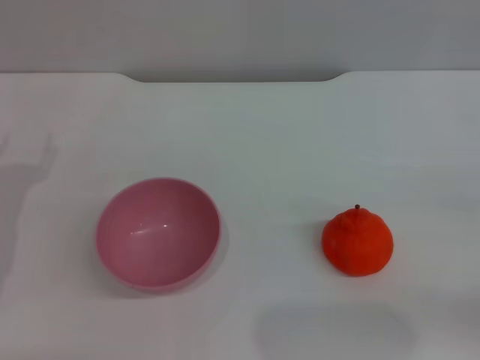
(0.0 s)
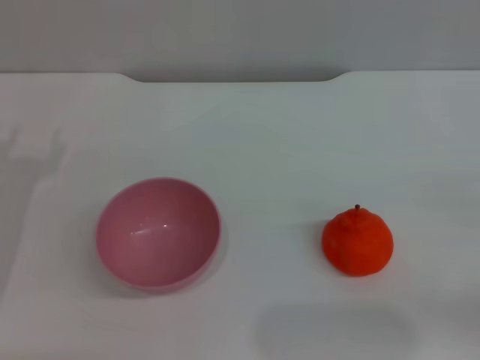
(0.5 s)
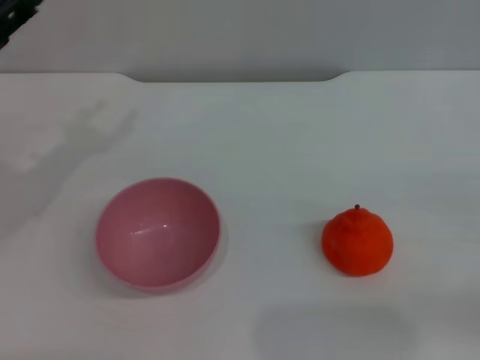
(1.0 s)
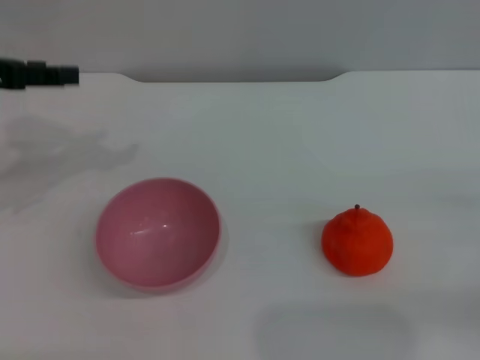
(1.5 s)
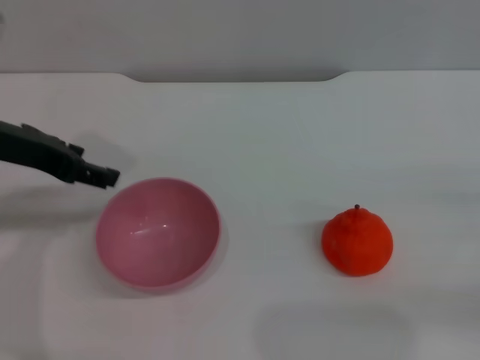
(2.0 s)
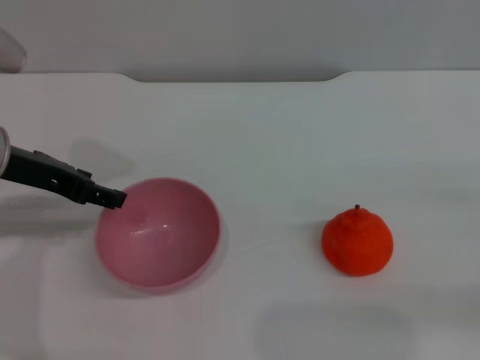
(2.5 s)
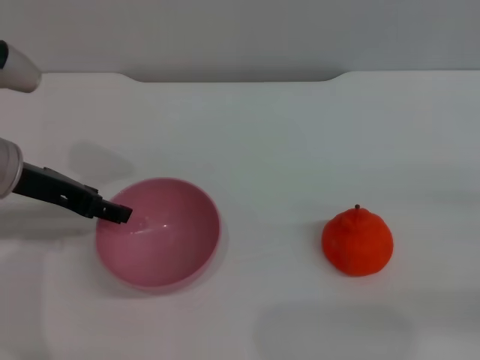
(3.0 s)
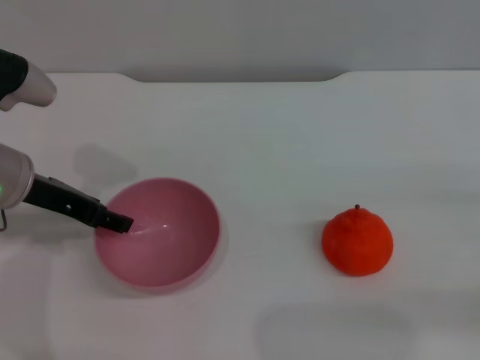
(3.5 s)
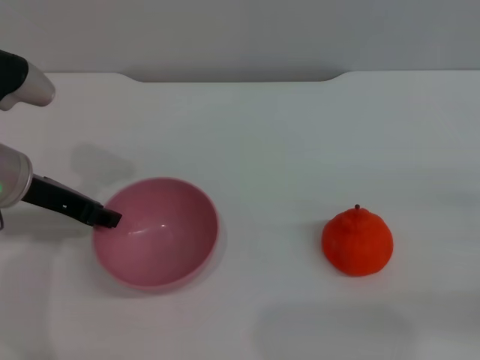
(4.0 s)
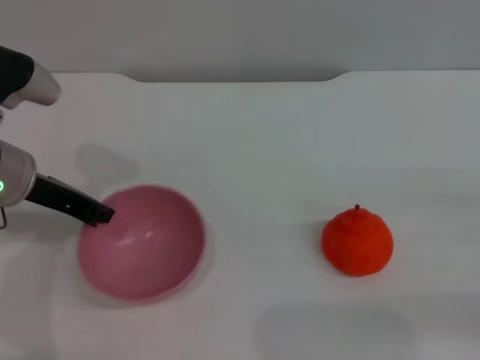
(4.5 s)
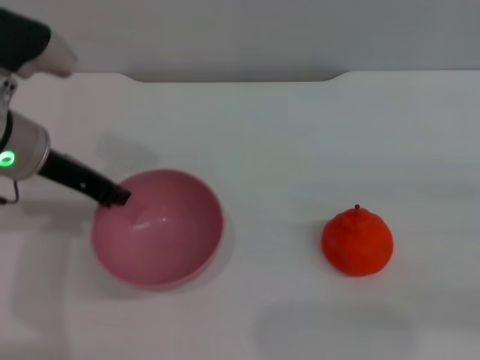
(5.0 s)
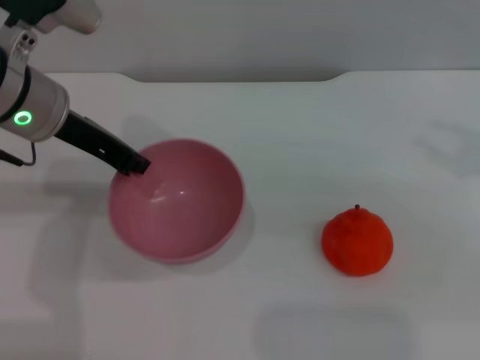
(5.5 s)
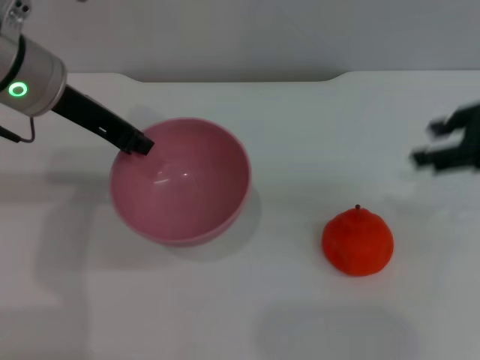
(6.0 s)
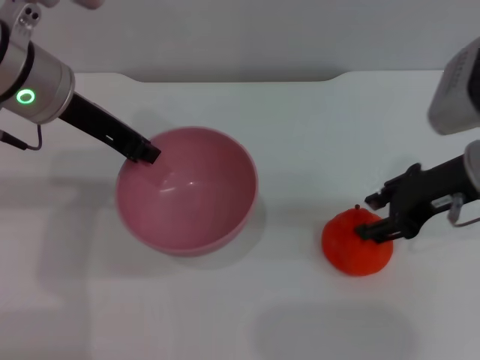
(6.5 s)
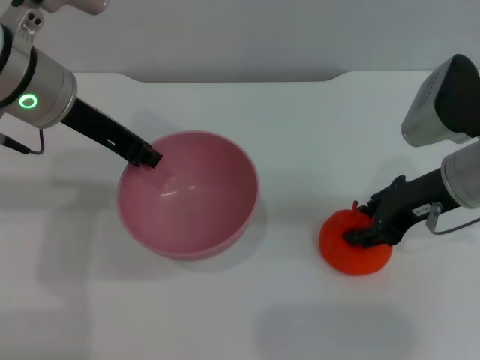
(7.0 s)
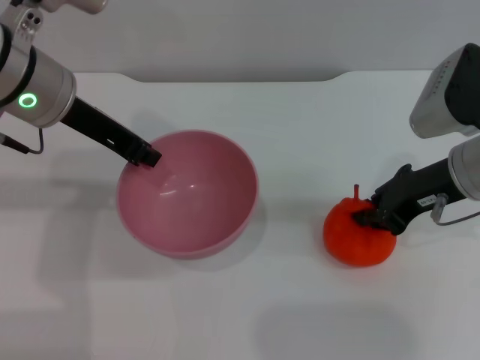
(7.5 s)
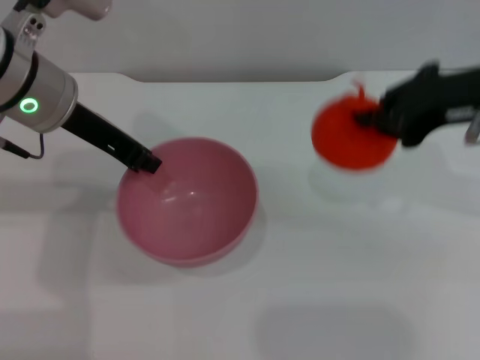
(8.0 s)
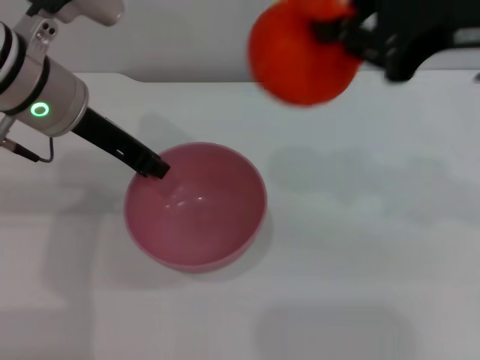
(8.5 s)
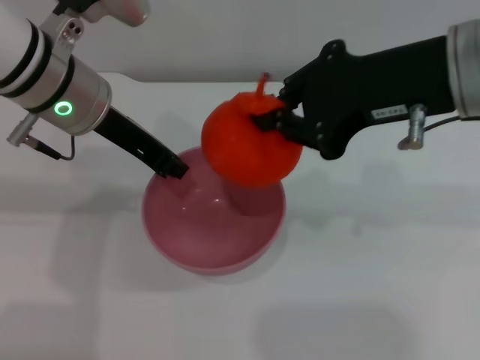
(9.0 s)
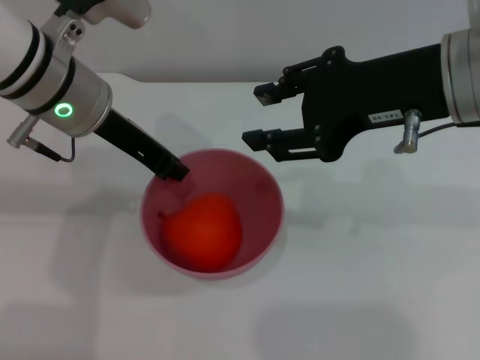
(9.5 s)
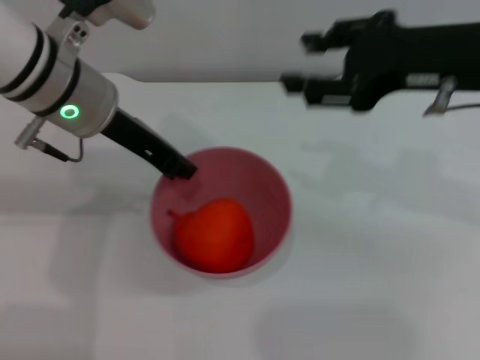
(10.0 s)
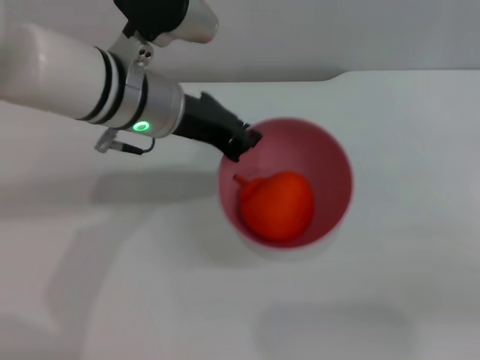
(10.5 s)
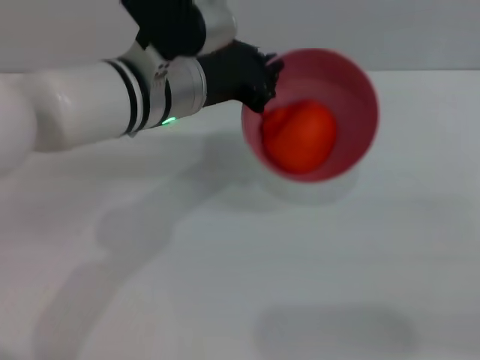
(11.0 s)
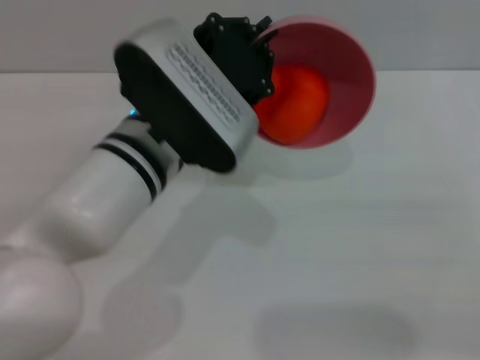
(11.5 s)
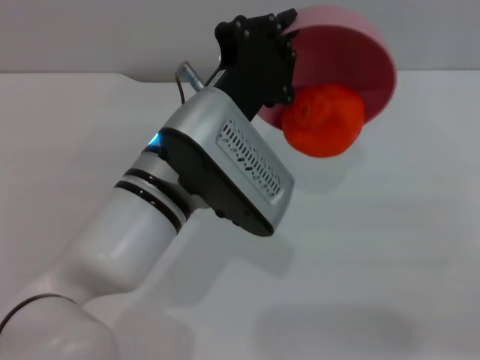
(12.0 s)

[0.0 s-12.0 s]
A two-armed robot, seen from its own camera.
Task of the whole recording: put the orange into the pink bowl and pour it out repeatedly.
Step, 0.0 to 5.5 s: Pick up the bowl with the left gripper.
Step, 6.0 to 7.5 s: Pick up the orange with the right gripper.
Step, 8.5 to 9.5 s: Place the orange into the bowl.
0.0 to 2.0 s: The left gripper travels upward, to the right and forward by some 15 cm.
2.0 to 4.0 s: The left gripper goes approximately 5 cm downward.
4.0 to 6.0 s: The right gripper moves upward, to the left and forward, about 20 cm; the left gripper is displaced upward by roughly 10 cm, and closes its fingers.
6.0 to 8.0 s: The right gripper is displaced to the left by roughly 5 cm, travels downward and back again, approximately 10 cm each way, and closes its fingers.
8.0 to 10.0 s: The right gripper opens up.
10.0 to 12.0 s: The right gripper travels to the right, downward and backward by about 25 cm. The left gripper goes about 15 cm to the right, backward and downward.

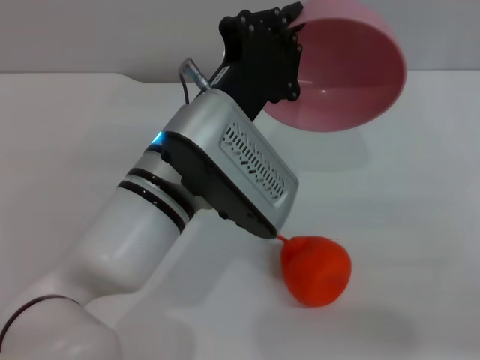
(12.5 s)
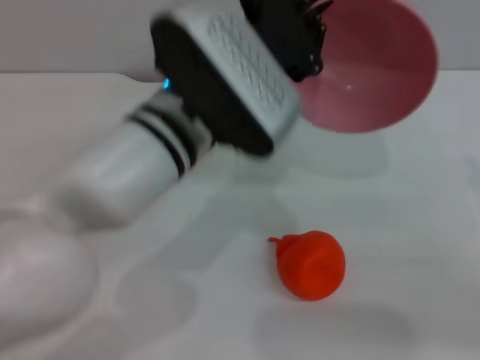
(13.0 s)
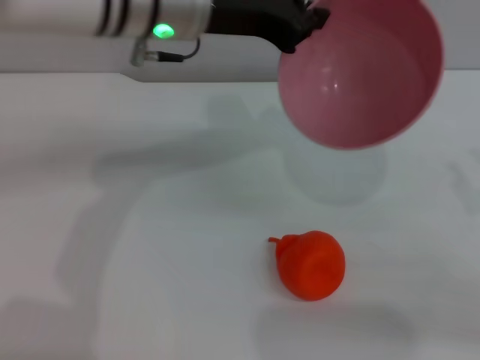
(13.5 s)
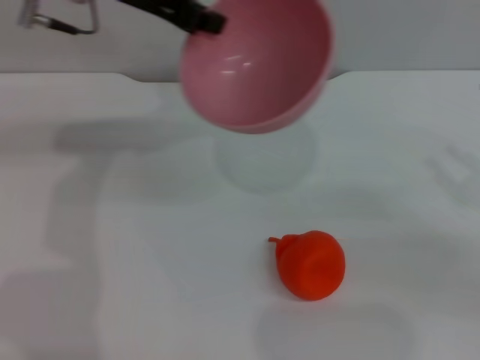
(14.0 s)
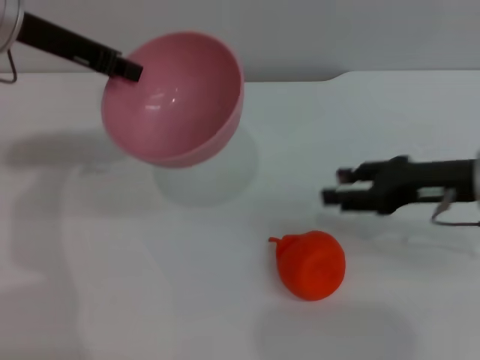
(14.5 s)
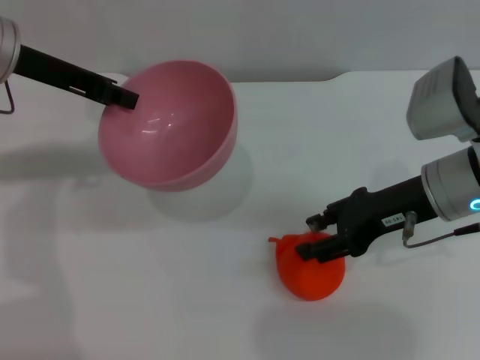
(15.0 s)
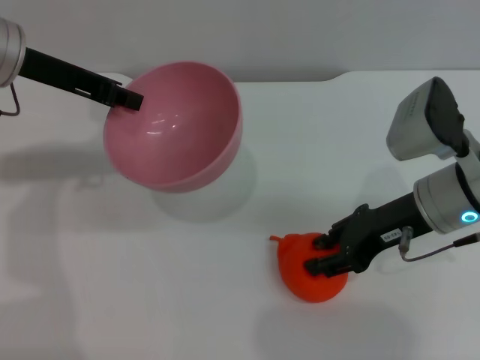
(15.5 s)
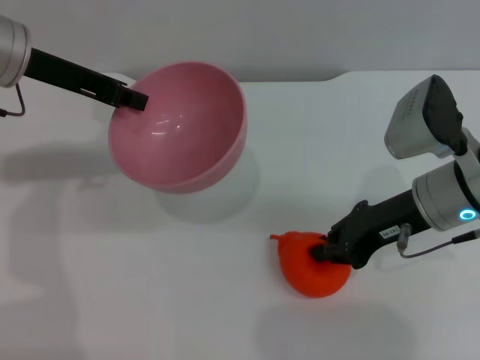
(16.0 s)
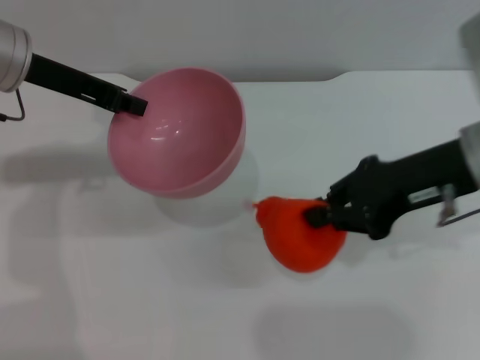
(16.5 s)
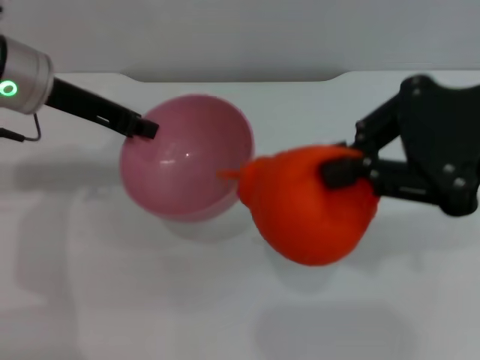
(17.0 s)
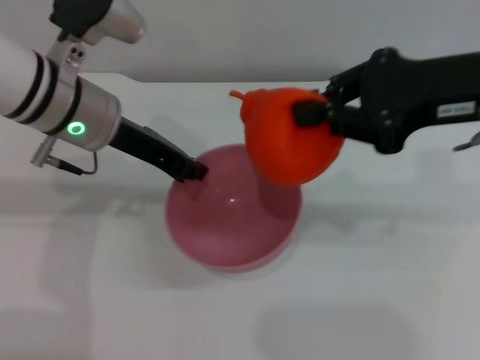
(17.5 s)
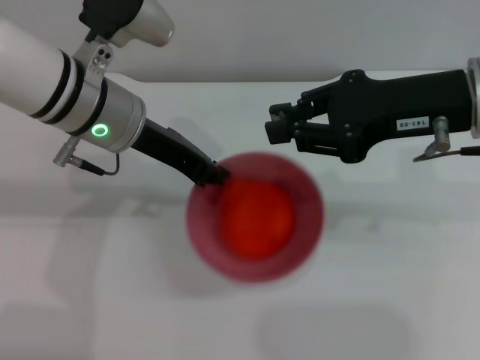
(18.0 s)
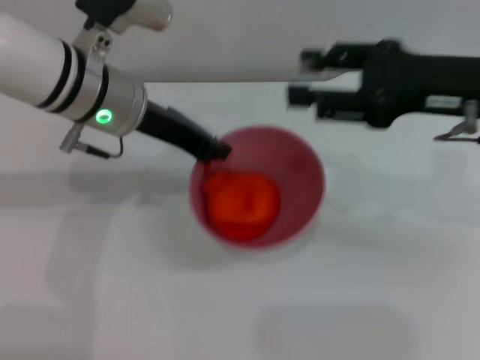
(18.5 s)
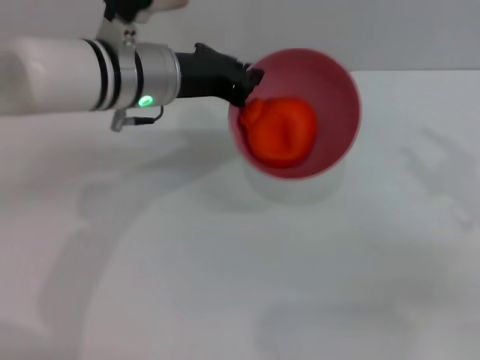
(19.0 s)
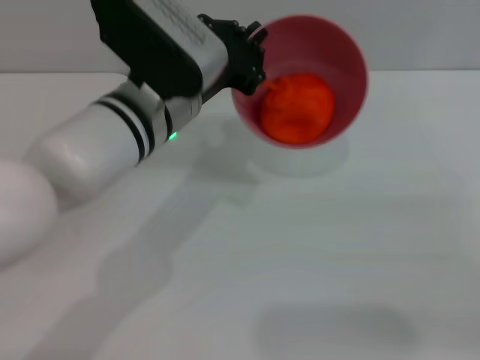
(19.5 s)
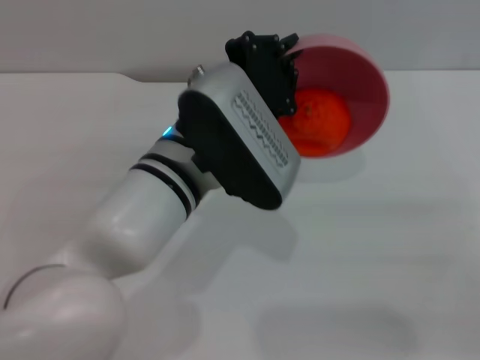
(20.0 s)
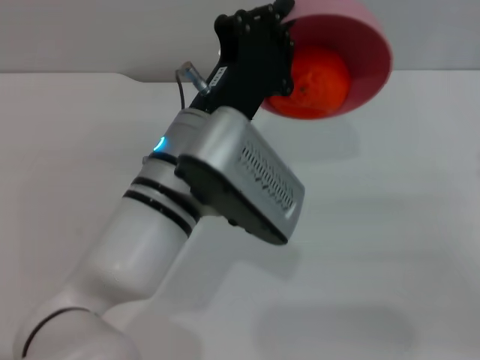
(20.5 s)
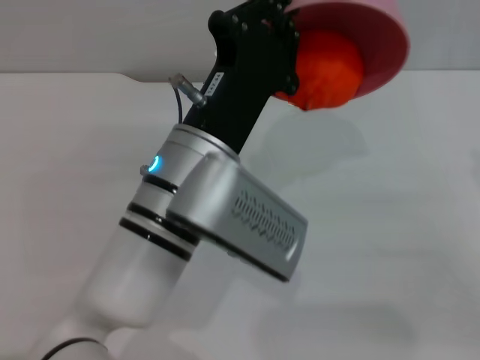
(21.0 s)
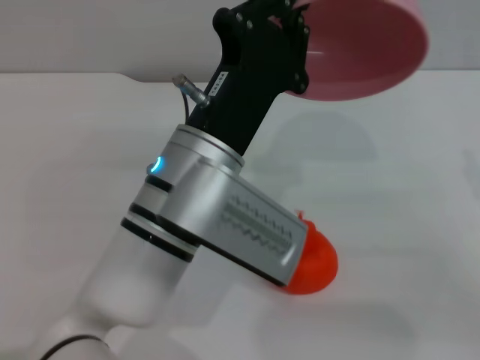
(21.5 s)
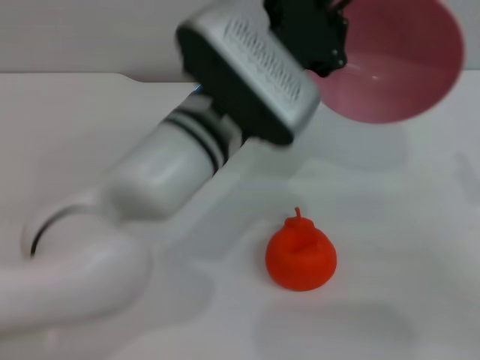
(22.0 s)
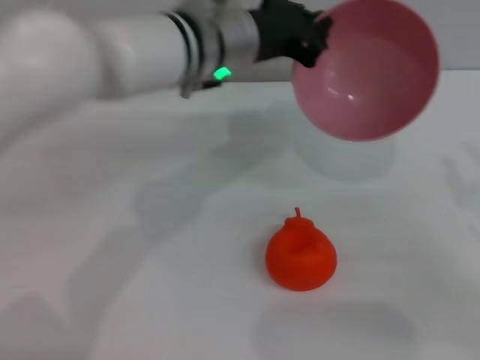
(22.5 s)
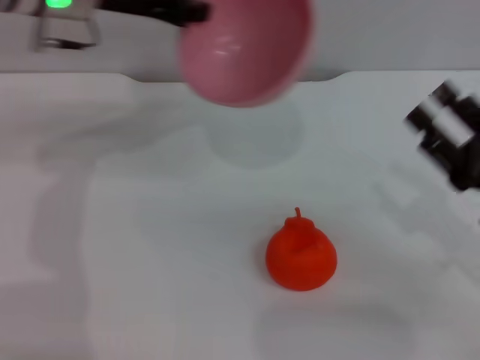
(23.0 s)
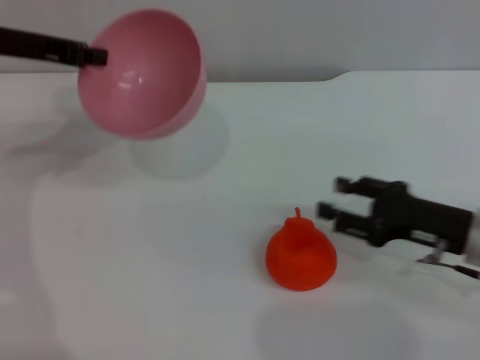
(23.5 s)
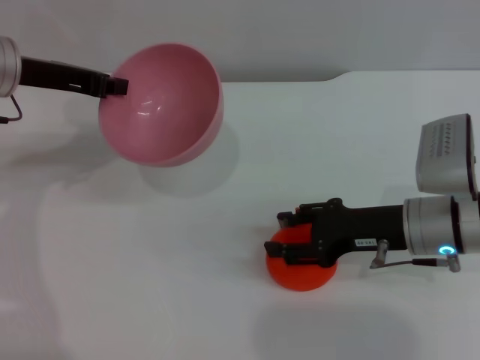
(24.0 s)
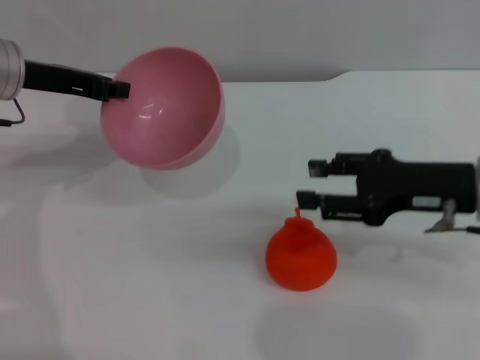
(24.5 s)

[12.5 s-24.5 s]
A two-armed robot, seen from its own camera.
Task of the whole recording: put the orange into the pink bowl and pour it out repeatedly.
Step, 13.0 to 17.0 s: Pick up the orange with the right gripper.
Step, 17.5 to 18.0 s: Place the orange into the bowl.
Step, 19.0 to 21.5 s: Pour the orange out of the bowl.
12.5 to 14.5 s: The right gripper heads forward and to the left, covering about 15 cm, while the left gripper is displaced to the left, forward and upward by about 25 cm.
14.5 to 16.5 s: The right gripper is displaced upward by some 10 cm, and closes its fingers.
16.5 to 18.5 s: The right gripper travels upward and back again, some 10 cm each way, and opens. The left gripper goes some 10 cm to the right.
18.5 to 20.5 s: The left gripper goes about 15 cm backward and to the right; the right gripper goes approximately 20 cm downward, to the right and backward.
20.5 to 22.5 s: The left gripper goes approximately 10 cm forward and upward.
22.5 to 24.5 s: The left gripper shifts some 20 cm to the left. The right gripper goes about 10 cm to the left and forward.

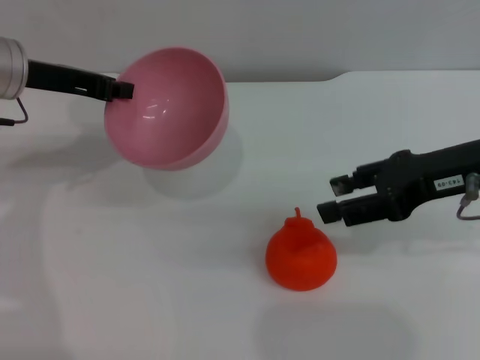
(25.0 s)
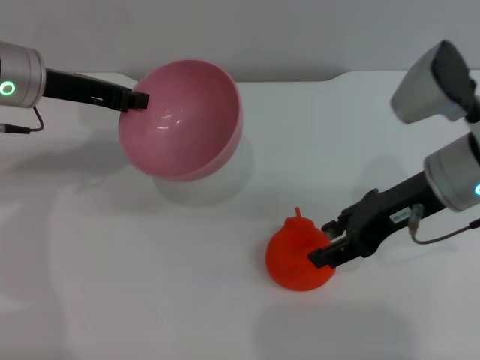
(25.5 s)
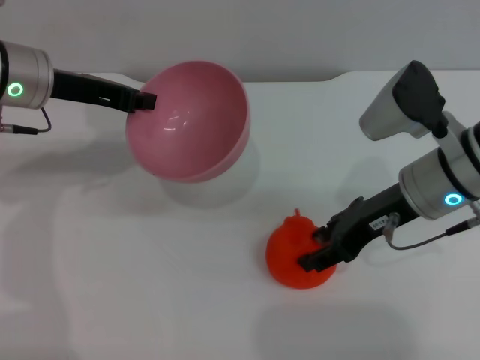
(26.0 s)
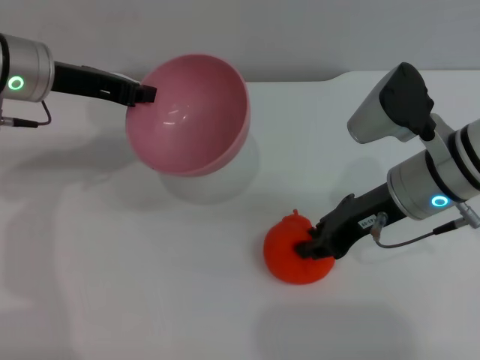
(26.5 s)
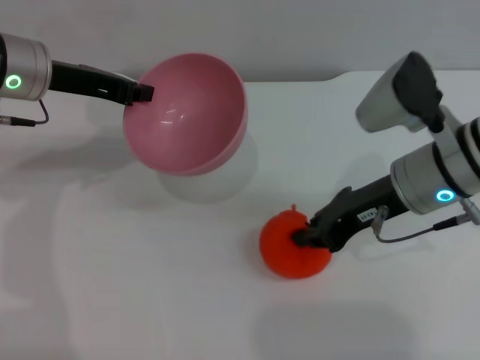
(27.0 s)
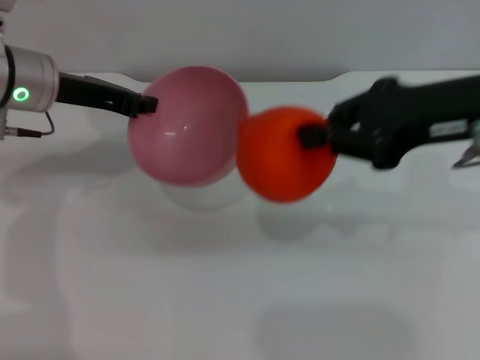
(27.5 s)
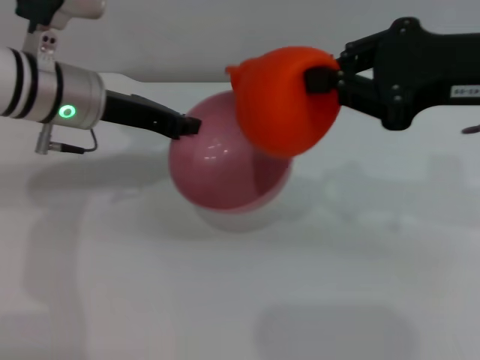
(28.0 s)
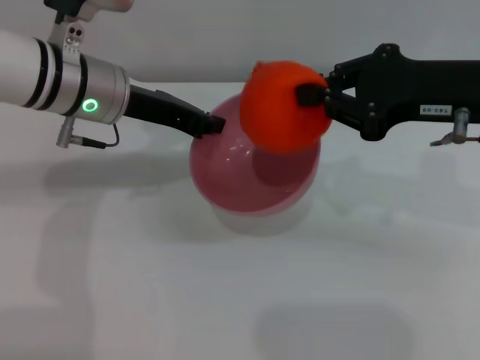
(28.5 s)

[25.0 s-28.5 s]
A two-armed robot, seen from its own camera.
Task of the whole recording: put the orange into the pink bowl and pour it out repeatedly.
Step, 25.0 to 27.0 s: Pick up the orange with the right gripper.
25.0 to 27.0 s: The right gripper travels to the left and downward by some 10 cm, and closes up.
27.0 to 28.5 s: The left gripper heads to the right, covering approximately 5 cm. The right gripper heads upward, covering some 10 cm.
